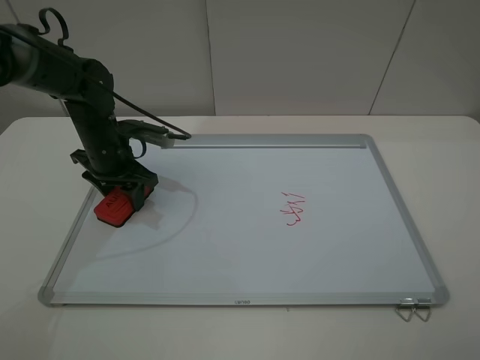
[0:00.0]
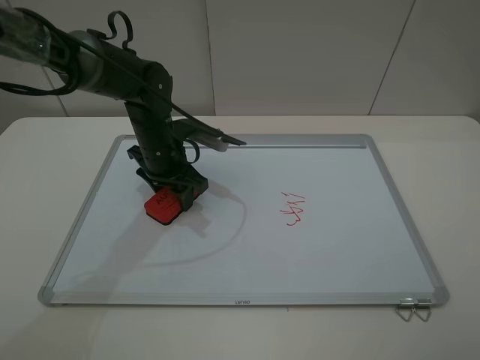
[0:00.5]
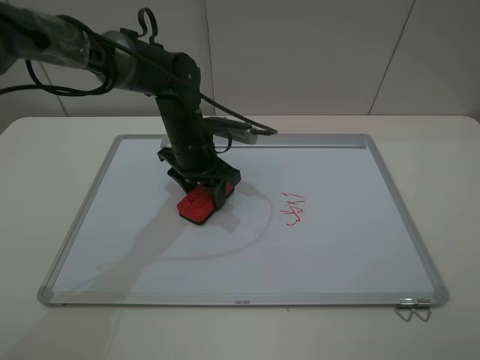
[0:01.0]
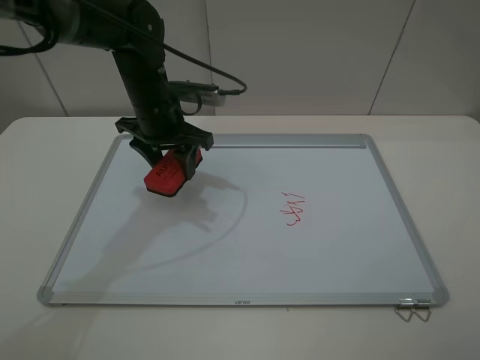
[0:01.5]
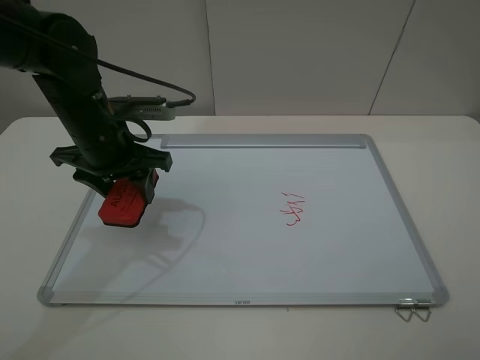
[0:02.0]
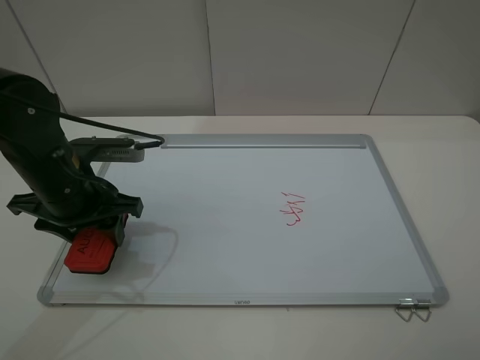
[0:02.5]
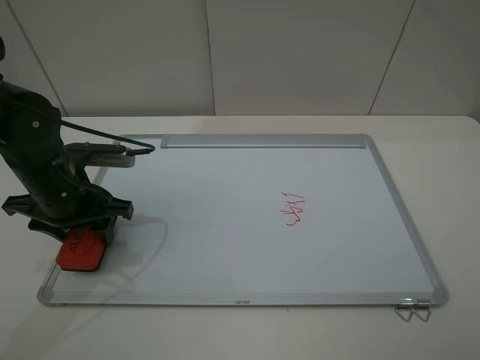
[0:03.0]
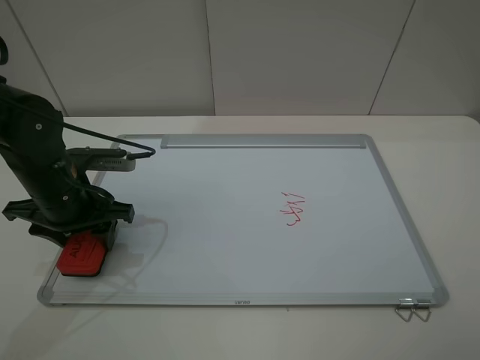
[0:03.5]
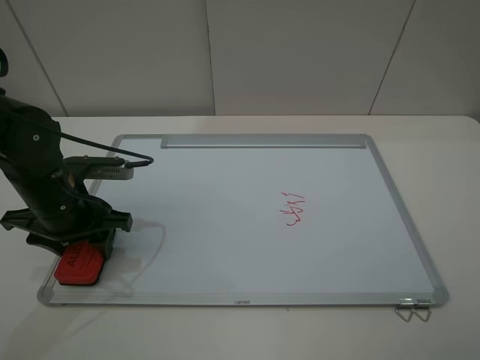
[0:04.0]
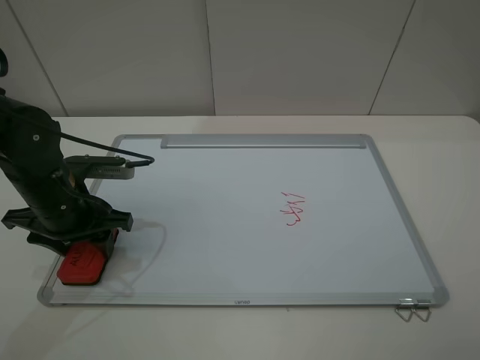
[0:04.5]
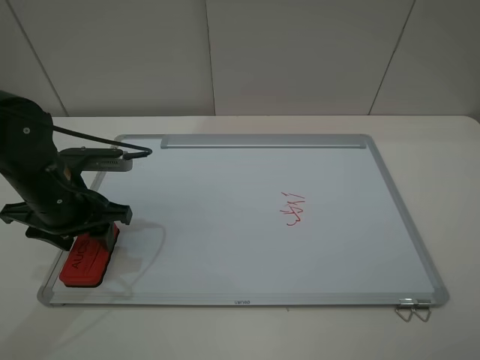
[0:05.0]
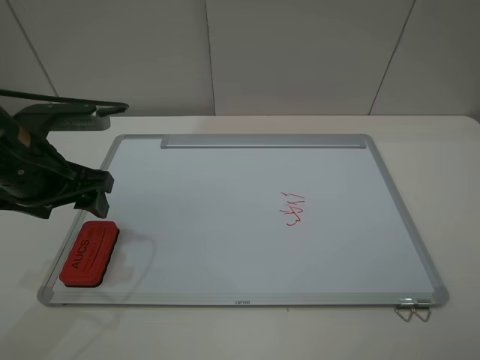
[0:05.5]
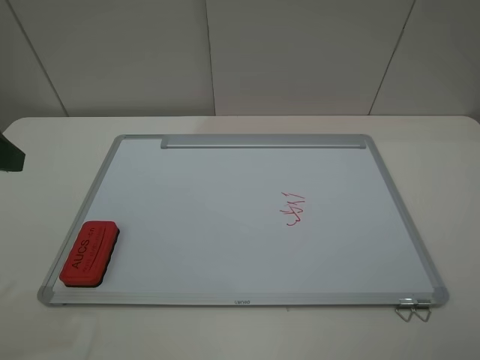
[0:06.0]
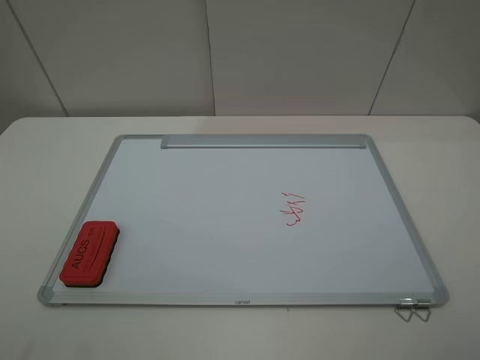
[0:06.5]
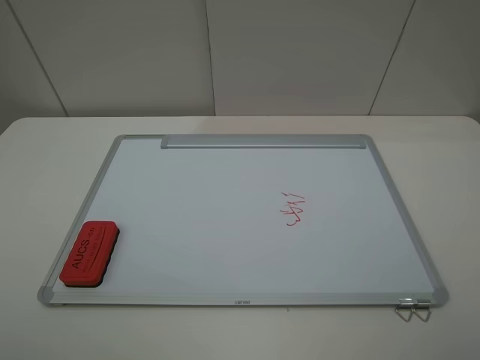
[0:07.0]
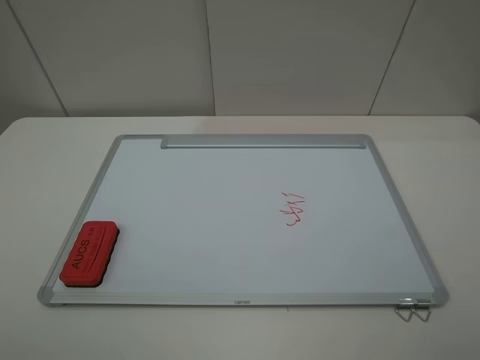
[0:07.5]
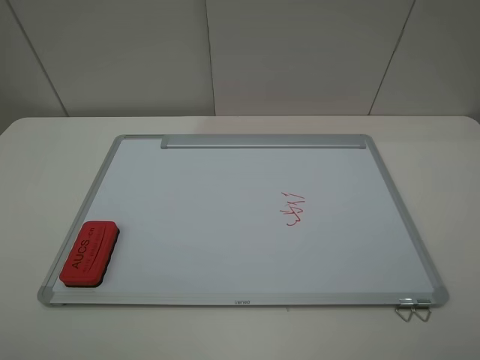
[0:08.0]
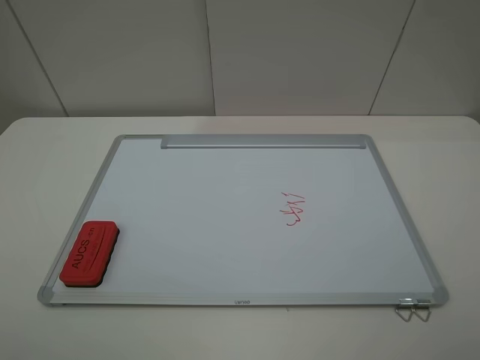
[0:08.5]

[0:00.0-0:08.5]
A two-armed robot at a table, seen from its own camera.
Step, 0:01.5 to 0:05.0: Place the eraser with the left gripper.
0:00.0 to 0:02.0: The left gripper is displaced upward and backward by approximately 10 cm, and goes to the right and returns, roughly 15 cm each way.
0:02.0 to 0:04.0: The left gripper travels downward, backward and to the left by some 10 cm.
0:04.0 to 0:06.5: The left gripper heads backward, upward and to the left, covering approximately 25 cm, and opens.

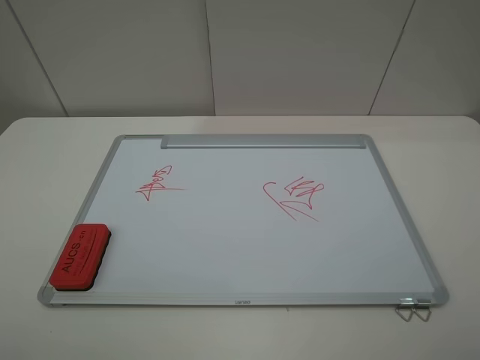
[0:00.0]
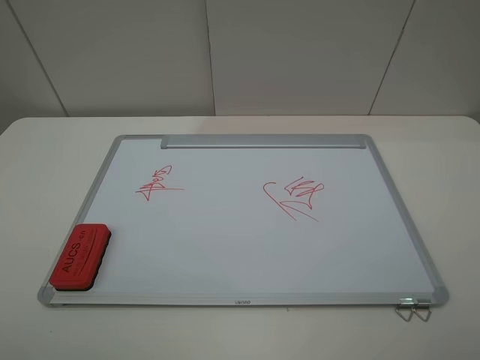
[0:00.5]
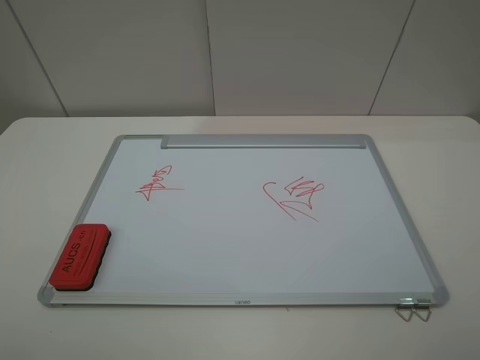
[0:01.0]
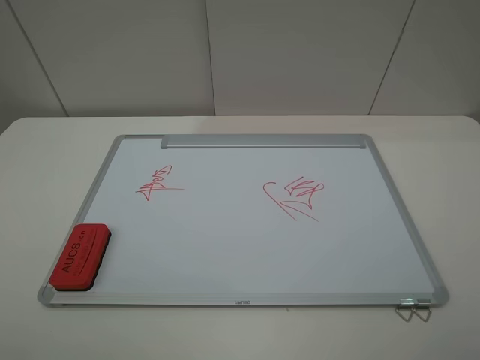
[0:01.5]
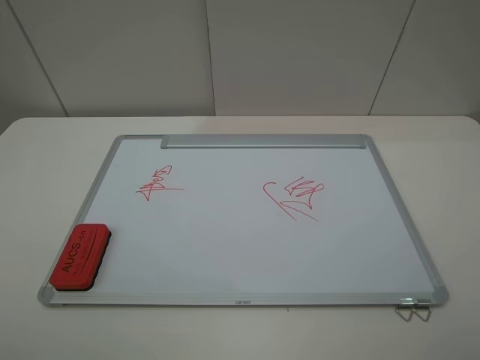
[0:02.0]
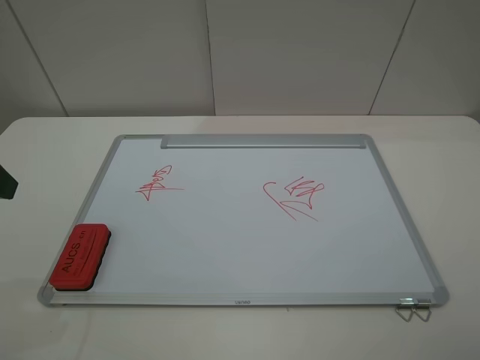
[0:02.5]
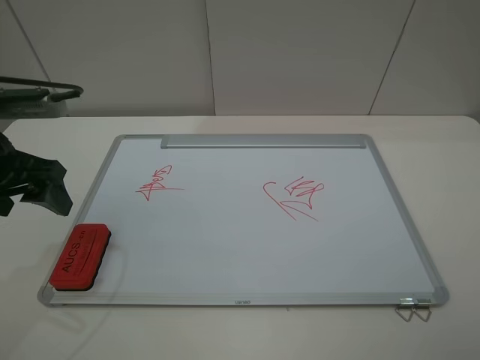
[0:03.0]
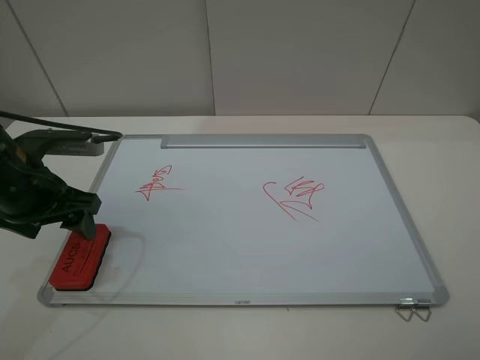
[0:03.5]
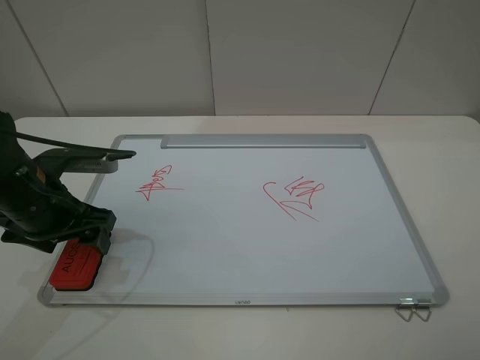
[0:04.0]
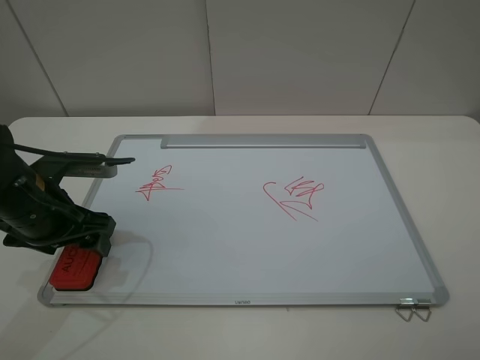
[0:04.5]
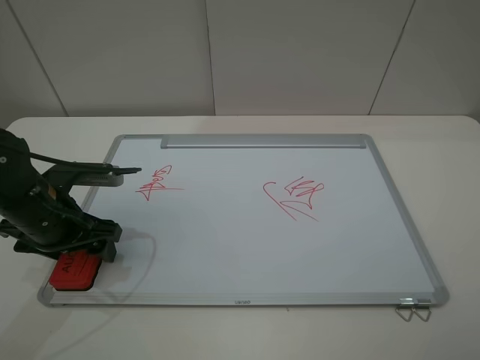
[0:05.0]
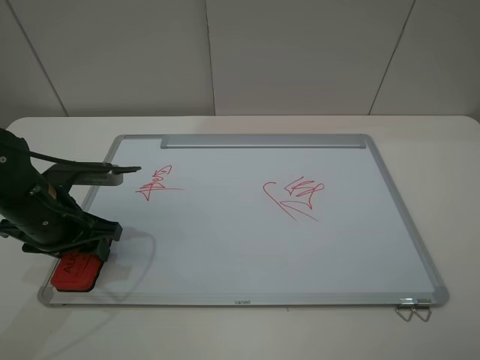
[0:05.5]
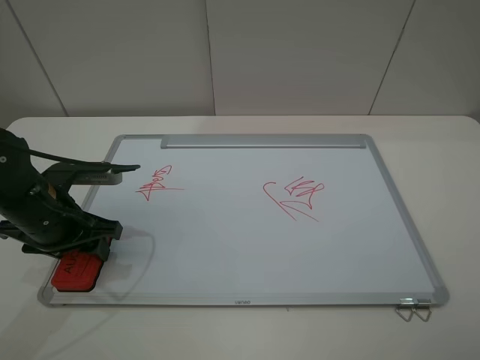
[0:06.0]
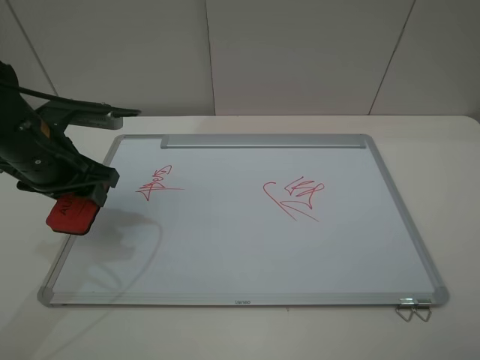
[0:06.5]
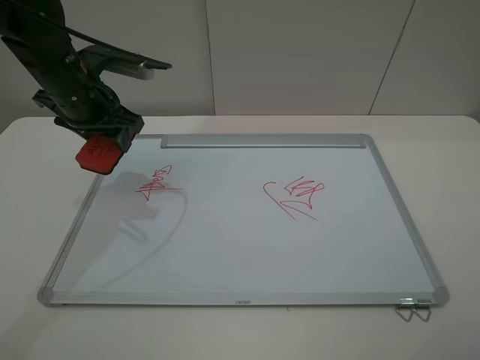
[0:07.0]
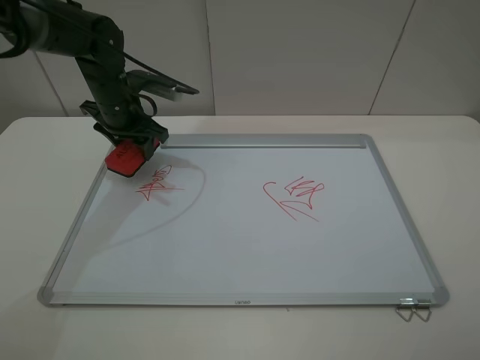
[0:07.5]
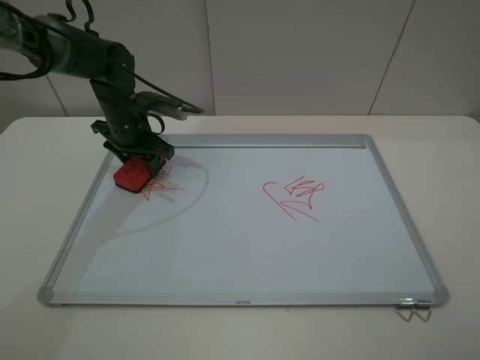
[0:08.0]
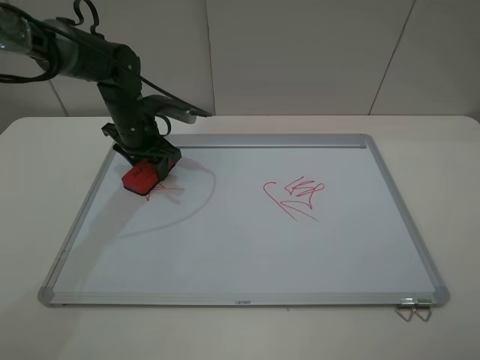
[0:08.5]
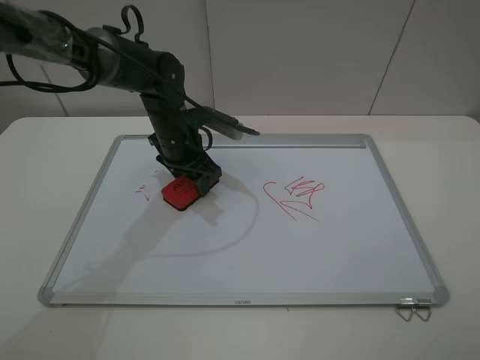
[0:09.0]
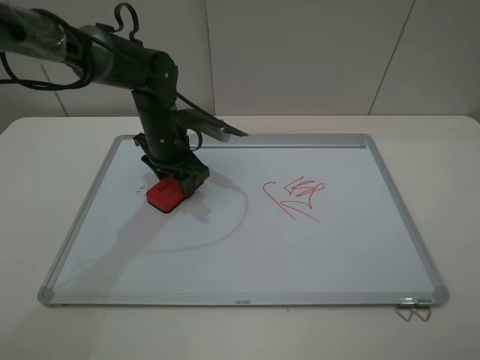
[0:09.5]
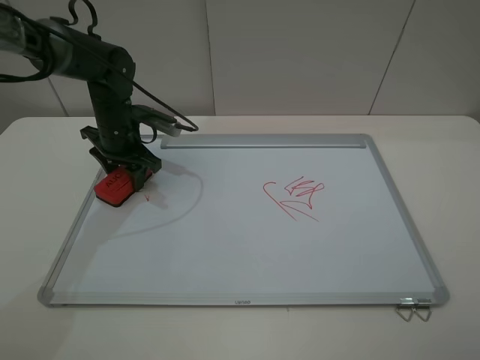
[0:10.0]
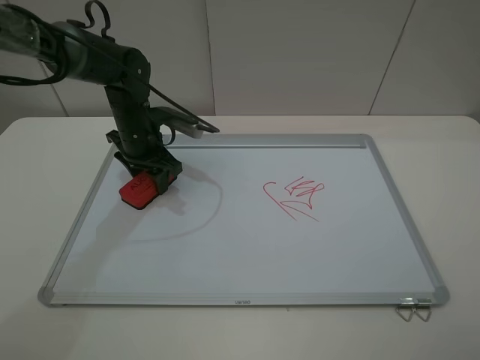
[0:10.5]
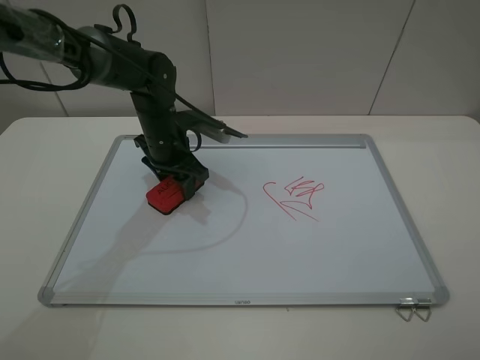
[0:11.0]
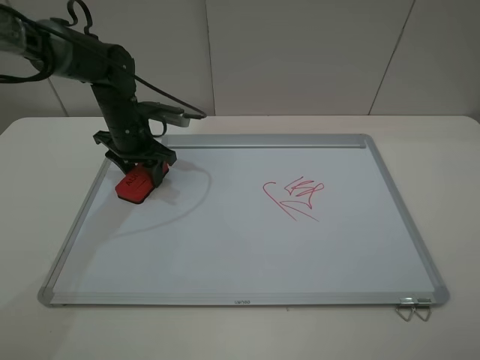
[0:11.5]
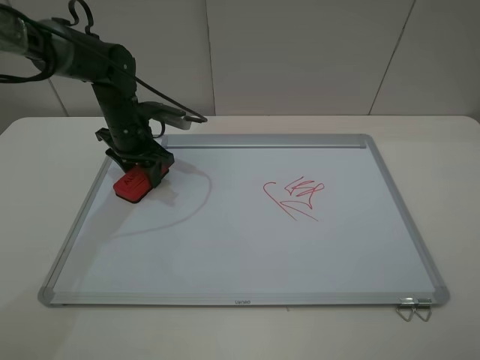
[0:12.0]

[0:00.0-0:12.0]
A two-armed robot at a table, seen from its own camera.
Step, 0:00.0 to 0:05.5: Grasp the eraser with the left gripper.
0:02.0 to 0:04.0: The left gripper moves forward and downward, about 25 cm.
0:04.0 to 0:06.0: The left gripper closes.
0:06.0 to 0:08.0: The left gripper is displaced forward by some 20 cm.
0:08.0 to 0:10.0: The left gripper travels to the right and back again, about 10 cm each way.
0:10.0 to 0:12.0: The left gripper travels to the right and back again, approximately 10 cm each way.

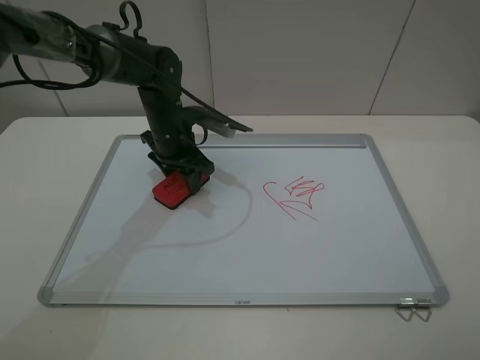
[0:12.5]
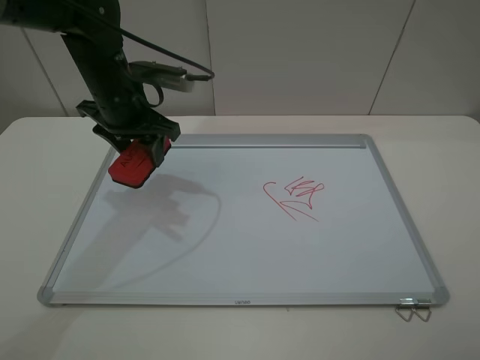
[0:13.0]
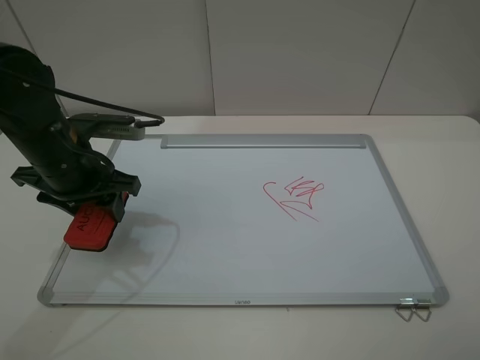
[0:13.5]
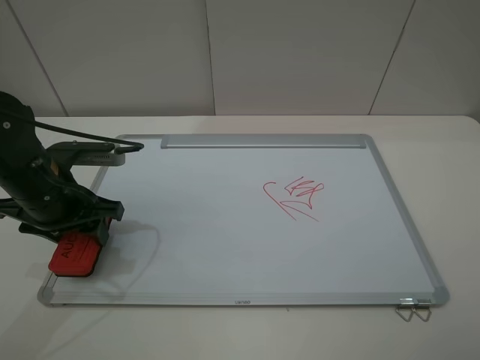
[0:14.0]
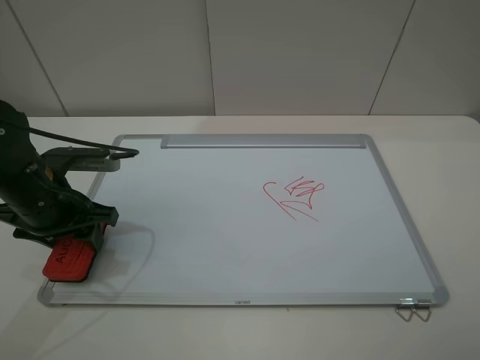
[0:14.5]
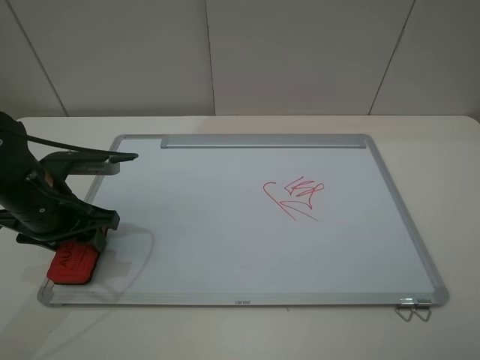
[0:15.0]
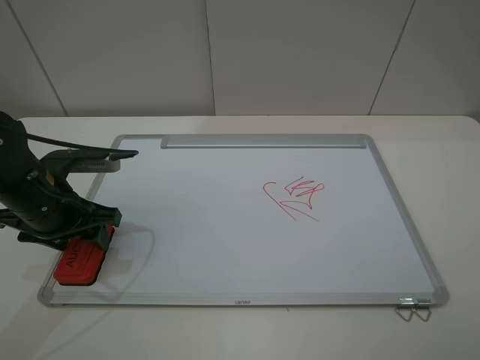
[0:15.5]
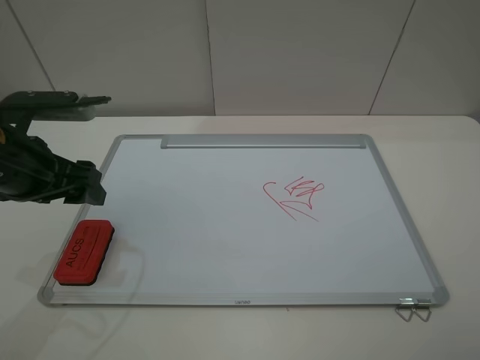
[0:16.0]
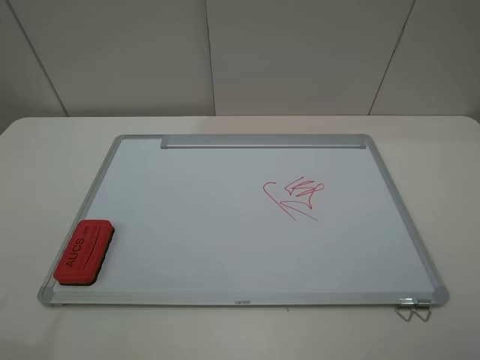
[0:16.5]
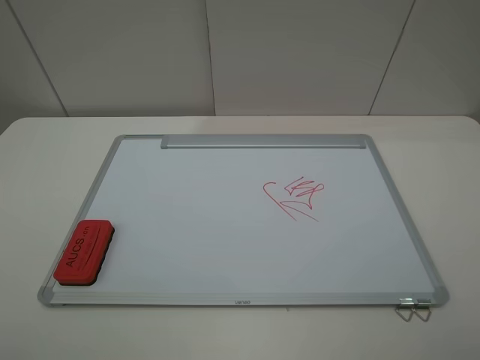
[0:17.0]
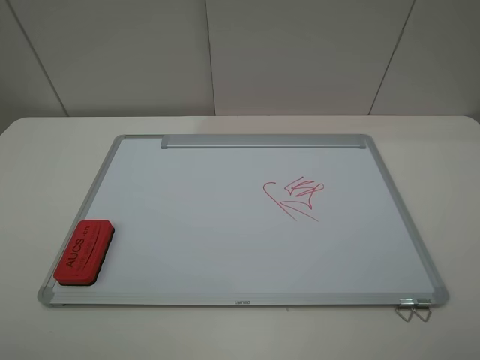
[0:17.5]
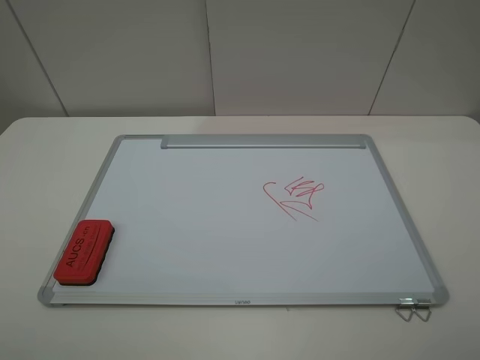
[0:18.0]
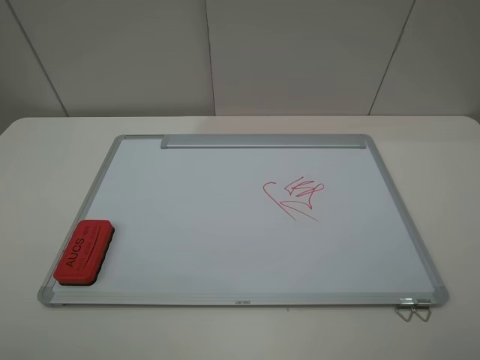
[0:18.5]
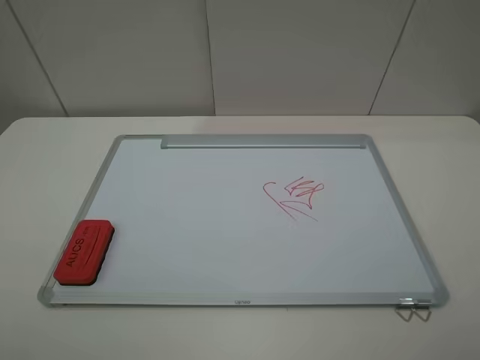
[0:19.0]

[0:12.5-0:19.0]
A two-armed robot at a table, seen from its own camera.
Step, 0:13.0 to 0:15.5: Place the eraser with the left gripper.
0:12.5 to 0:14.5: The left gripper moves backward and to the left, roughly 20 cm.
0:14.5 to 0:17.0: The left gripper goes roughly 25 cm backward and upward, and opens up.
